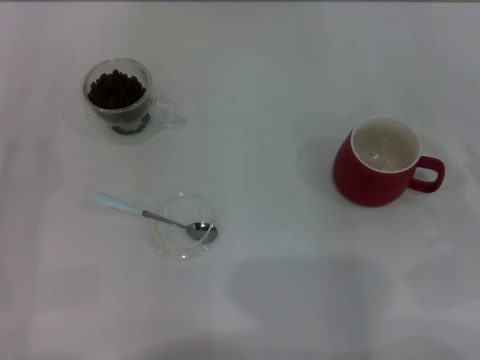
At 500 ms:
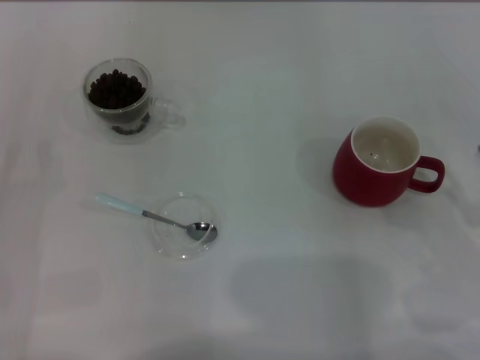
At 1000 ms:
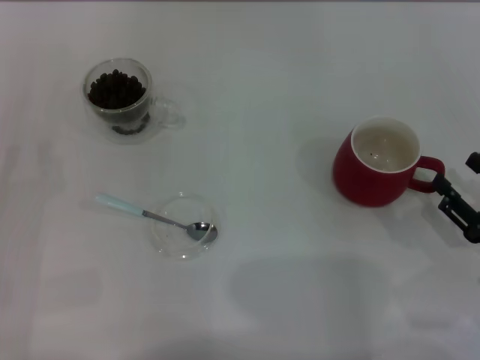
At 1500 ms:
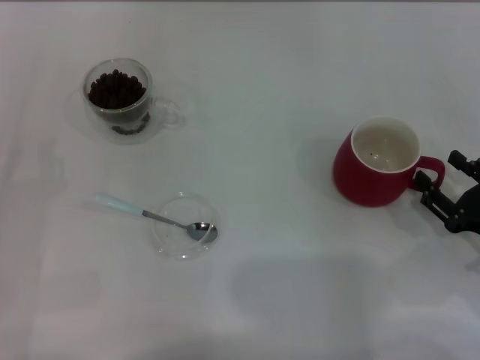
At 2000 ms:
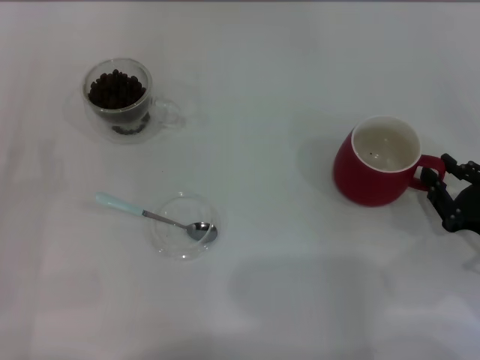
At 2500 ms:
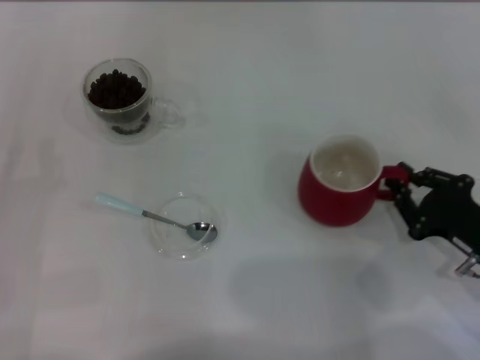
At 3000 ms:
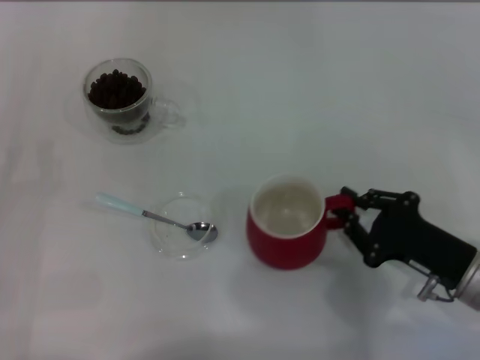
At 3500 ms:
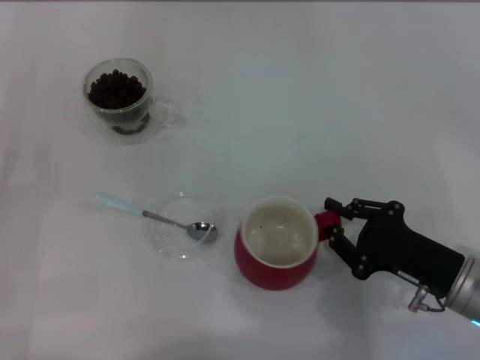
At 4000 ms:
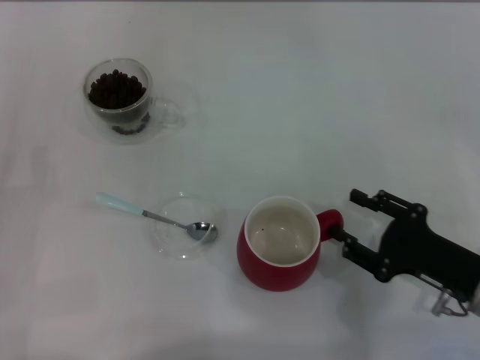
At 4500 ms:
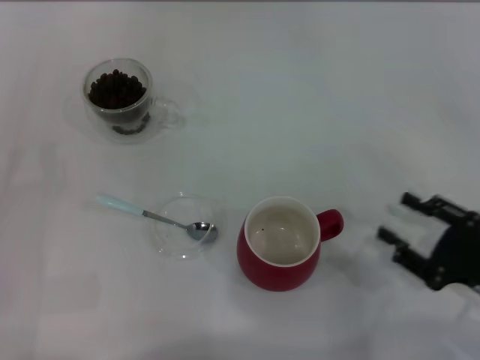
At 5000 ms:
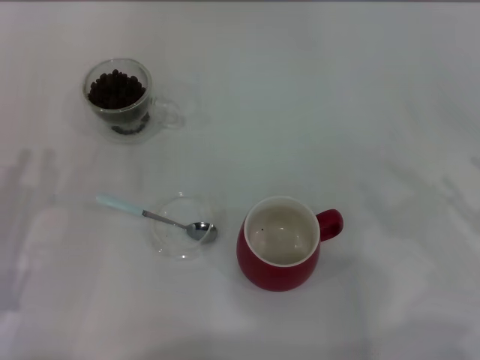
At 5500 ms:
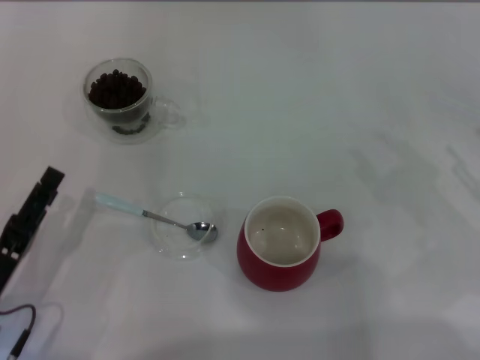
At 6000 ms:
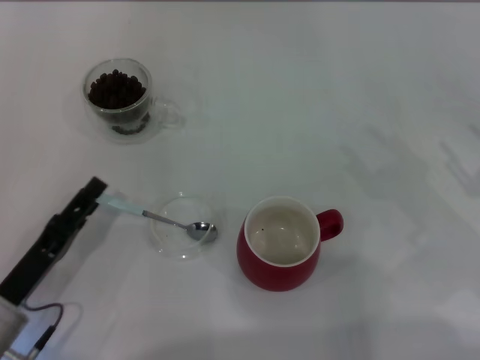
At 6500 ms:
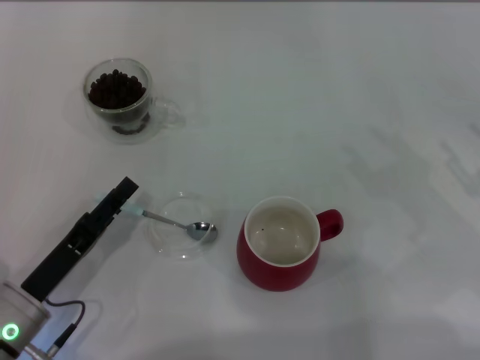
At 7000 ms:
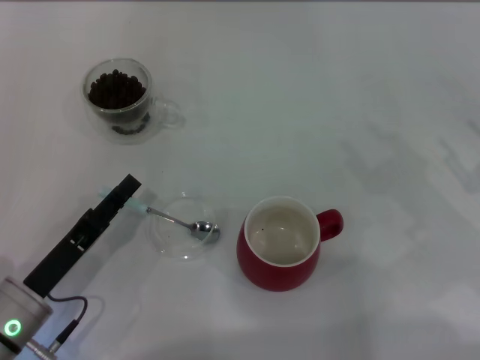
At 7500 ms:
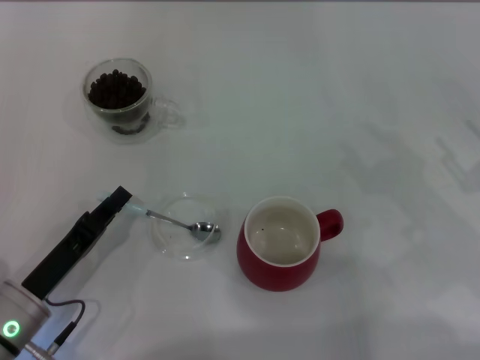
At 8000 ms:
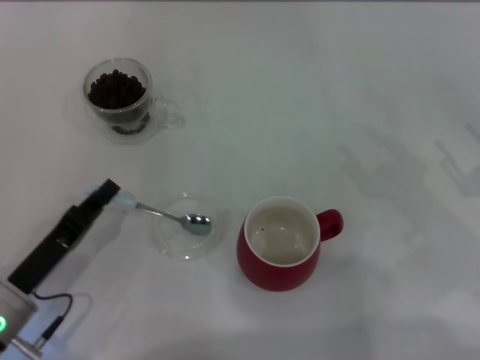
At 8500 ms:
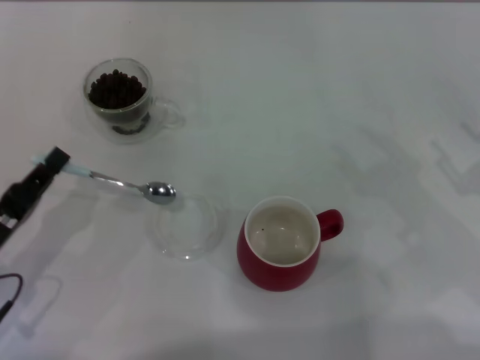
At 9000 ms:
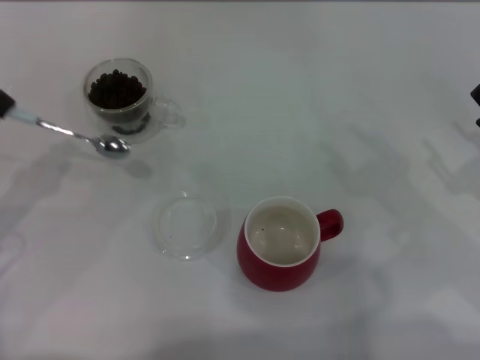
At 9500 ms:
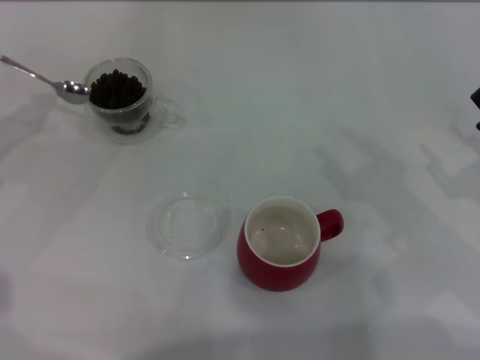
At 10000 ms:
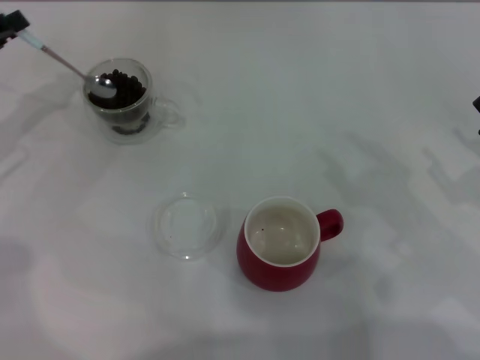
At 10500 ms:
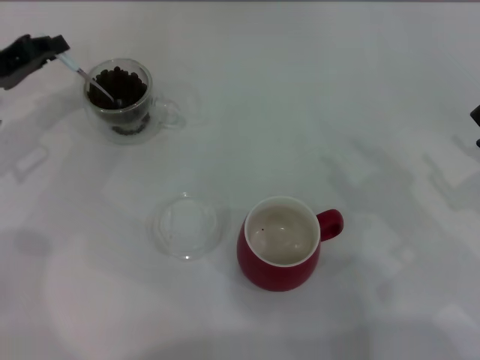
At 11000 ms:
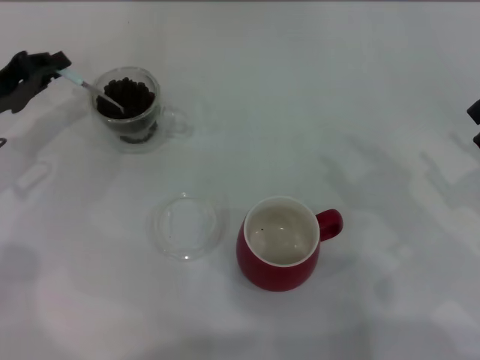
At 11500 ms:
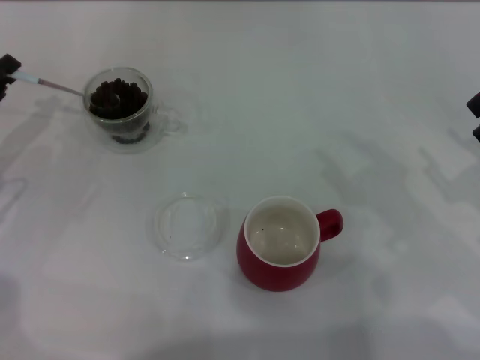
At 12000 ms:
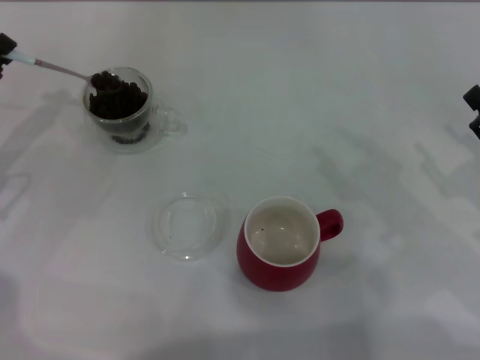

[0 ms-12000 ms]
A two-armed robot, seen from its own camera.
Task of the whole recording: Use a blue spoon to take out the coffee beans from the glass and pour them into the red cup.
Step, 5000 ms to 8000 ms: Pick up the spoon with the right gripper.
0 ms to 2000 ms: The right gripper ends up approximately 5 cm from where it was, and closes.
2000 ms to 4000 ms: The right gripper travels to the left by roughly 5 cm, and closes and opens again.
4000 ms to 6000 ms: The right gripper moves to the right and upward, approximately 10 cm. The left gripper goes roughly 10 cm to the right, and opens its fingers.
6000 ms to 8000 ms: The left gripper closes.
8000 ms to 10000 ms: The left gripper goes some 25 cm forward, upward and to the left.
10000 ms to 12000 ms: The left gripper changes place by roughly 5 cm.

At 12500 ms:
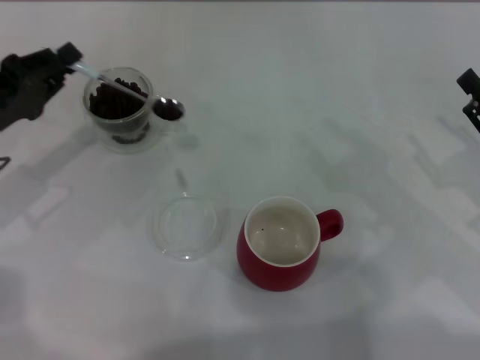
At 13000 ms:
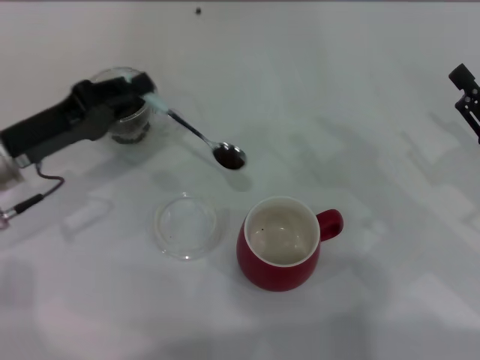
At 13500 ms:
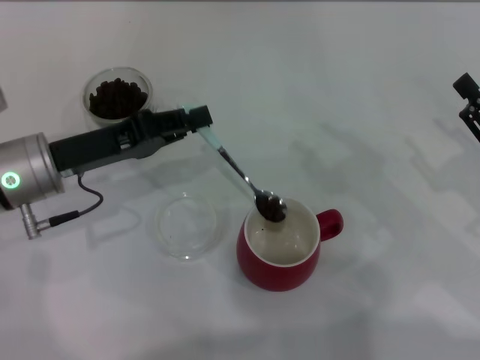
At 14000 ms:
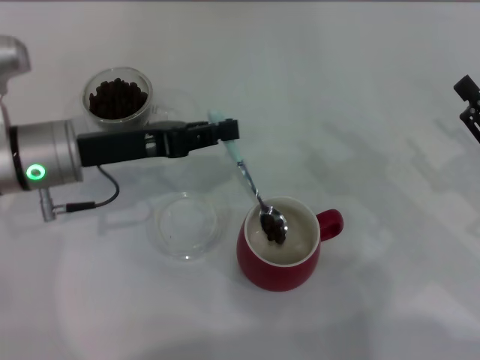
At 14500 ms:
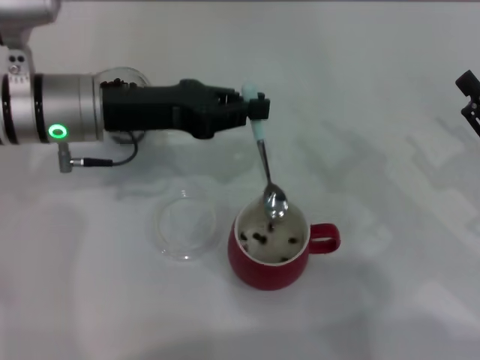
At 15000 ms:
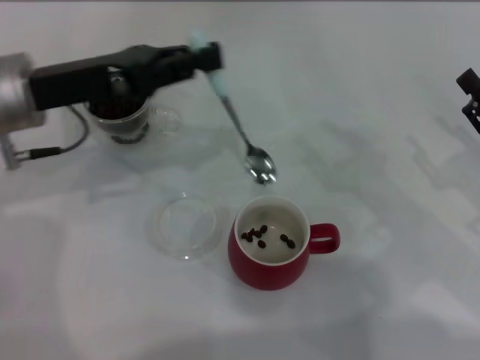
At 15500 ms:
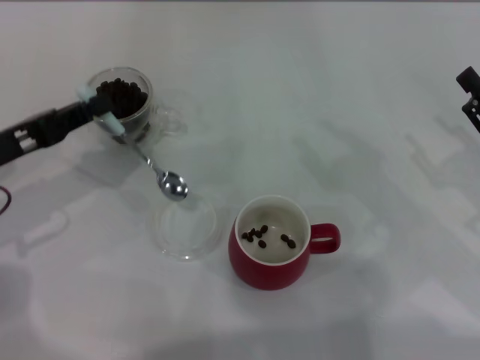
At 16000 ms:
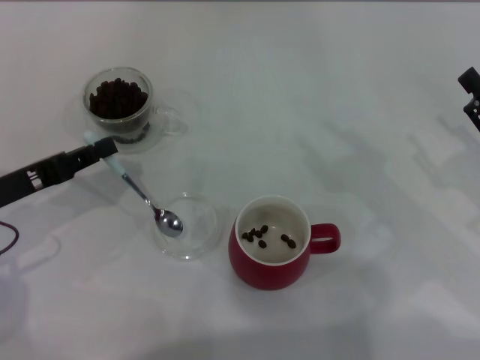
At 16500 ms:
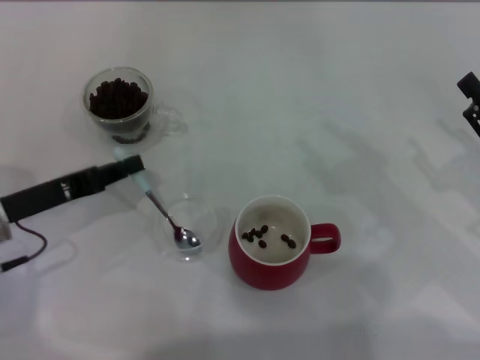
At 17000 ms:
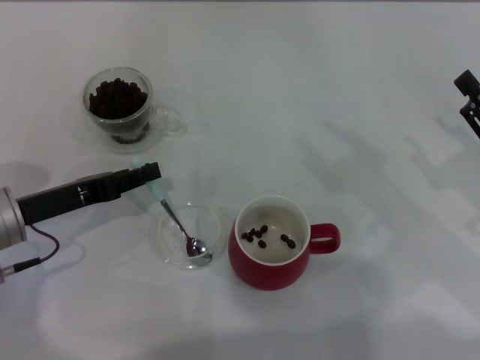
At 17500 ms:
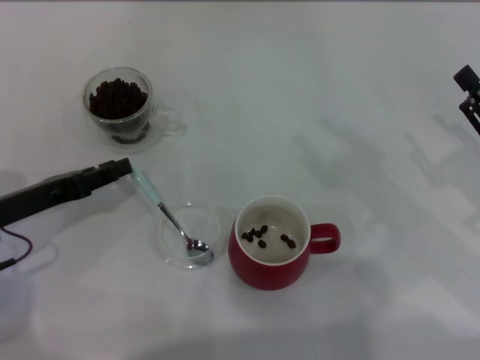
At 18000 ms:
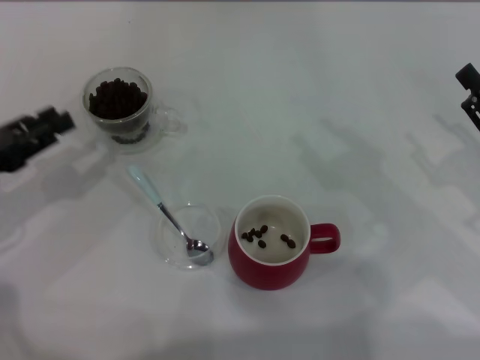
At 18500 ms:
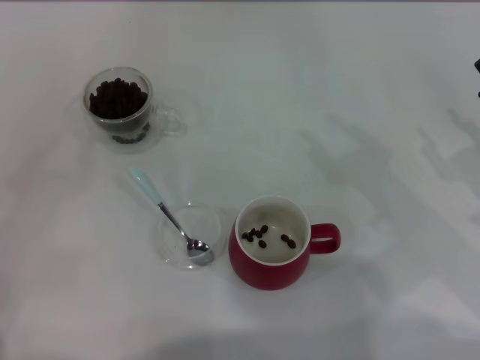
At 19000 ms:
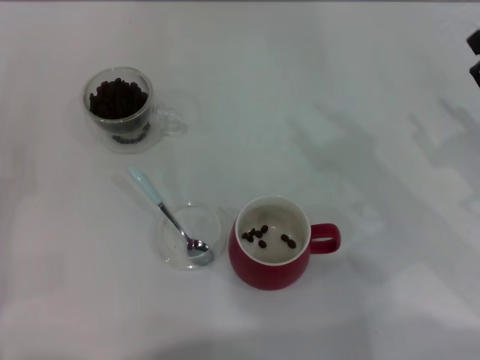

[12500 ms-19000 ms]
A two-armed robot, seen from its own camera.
Task of the whole recording: Use a blue spoon to take out the coffee beans from the glass and pour them into the red cup.
12500 ms to 14500 ms: The left gripper travels to the right by some 15 cm.
14500 ms to 17000 ms: The left gripper heads to the left, downward and backward, covering some 15 cm.
17000 ms to 19000 ms: The left gripper moves to the left and backward, about 15 cm, and opens its fingers.

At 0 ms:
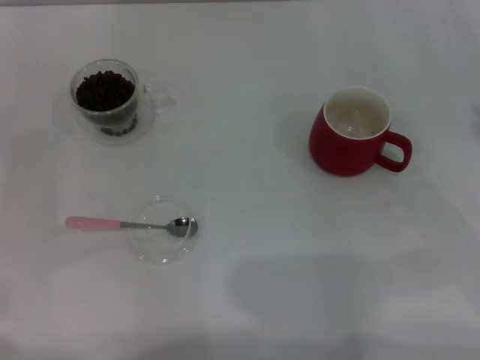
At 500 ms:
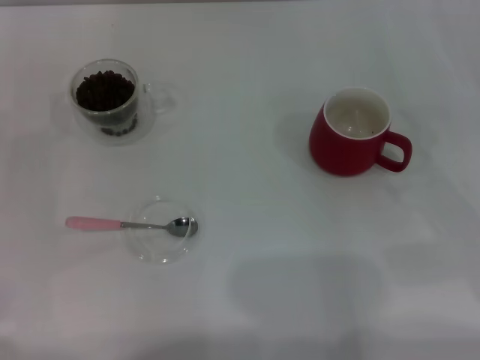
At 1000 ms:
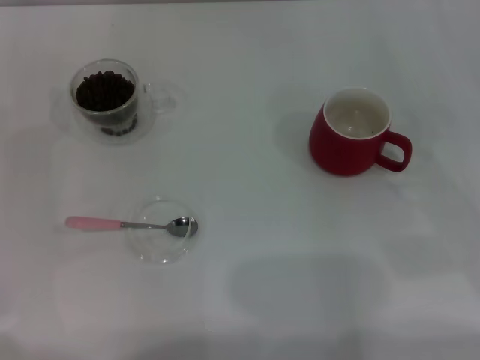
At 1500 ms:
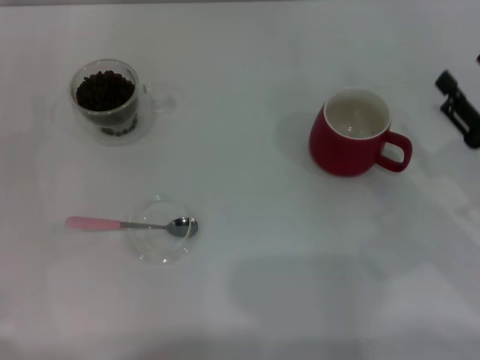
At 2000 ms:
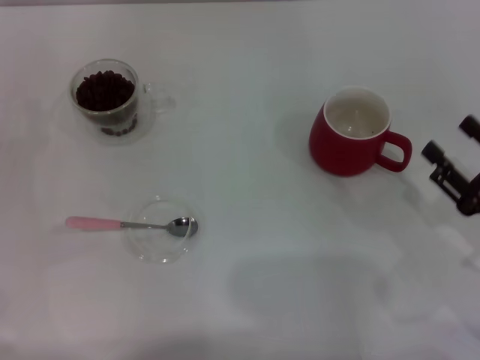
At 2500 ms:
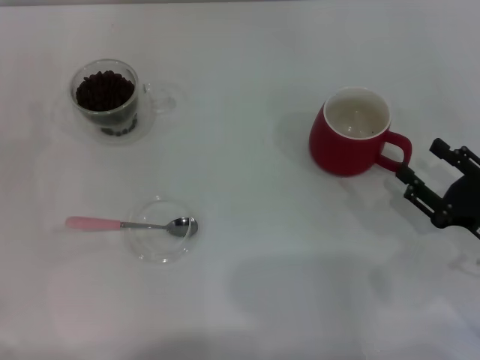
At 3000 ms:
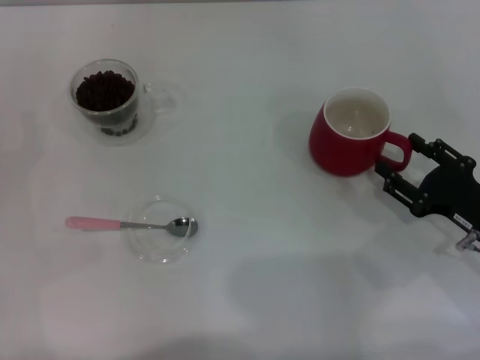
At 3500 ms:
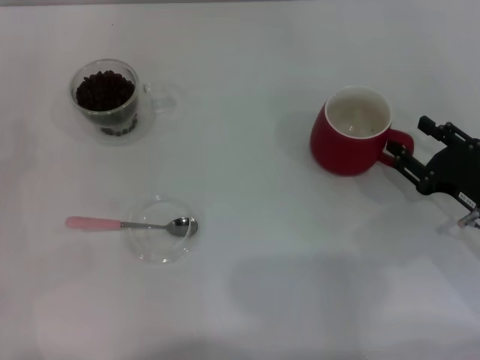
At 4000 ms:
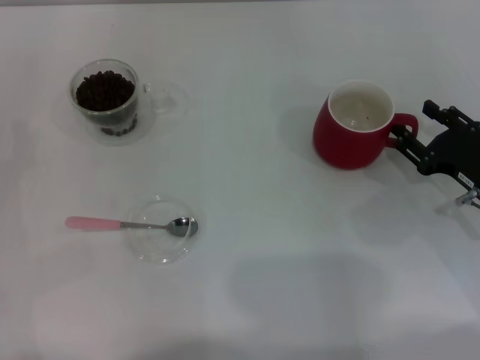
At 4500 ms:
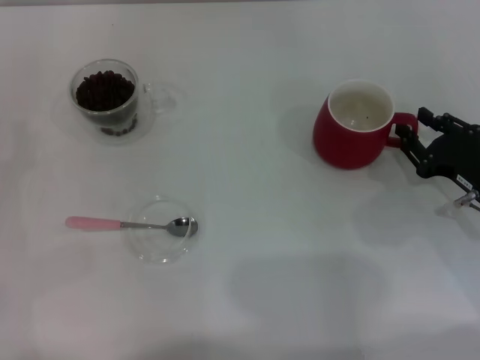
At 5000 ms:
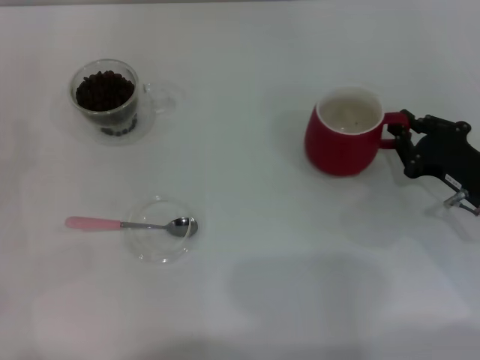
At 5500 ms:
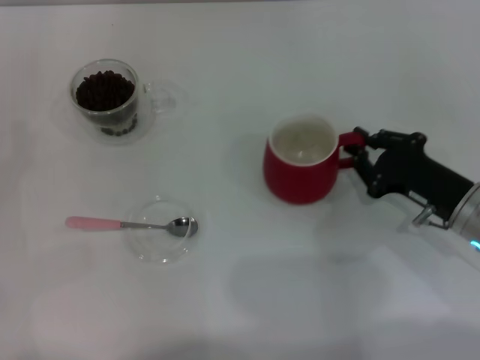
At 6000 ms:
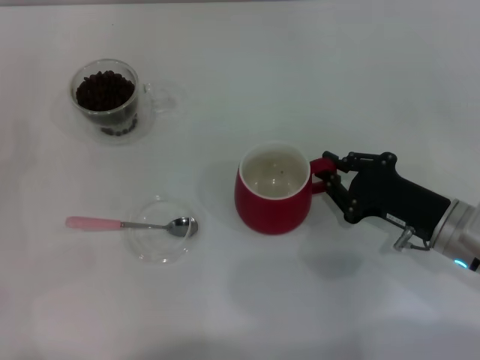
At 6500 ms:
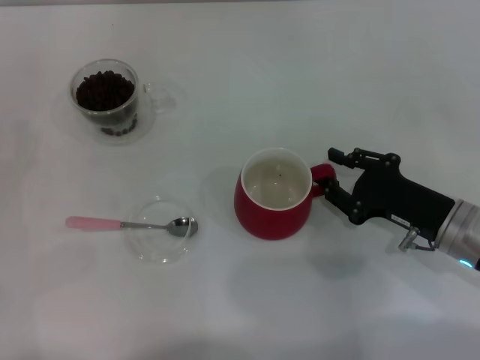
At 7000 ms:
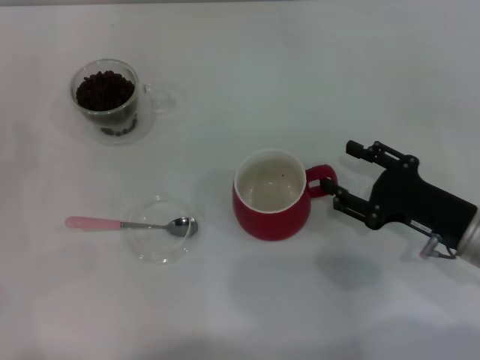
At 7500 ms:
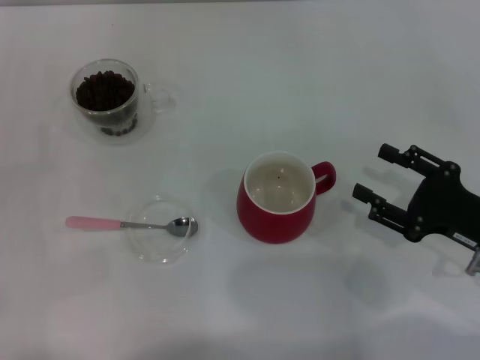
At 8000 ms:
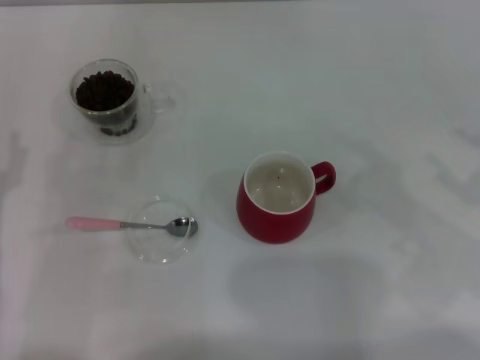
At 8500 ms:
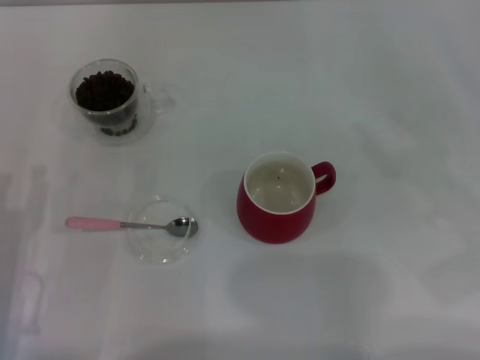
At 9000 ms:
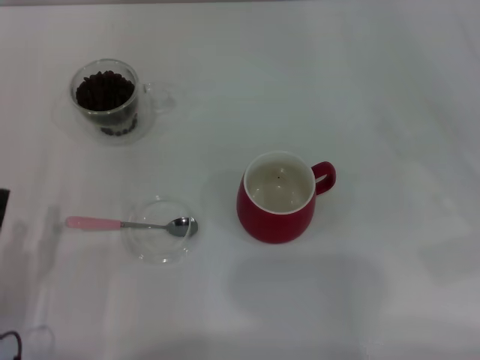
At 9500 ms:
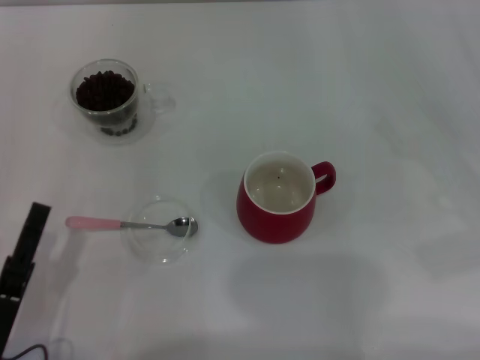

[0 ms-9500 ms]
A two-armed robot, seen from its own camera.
Task of the whole recording: Use a pink spoon to take out the coffee beans from the glass and pour them into the red cup.
Step, 0 ms to 7000 ms: Move the cup to the center of view with the left gripper.
0 ms to 2000 ms: The right gripper travels downward by some 5 cm.
2000 ms to 4000 ms: The right gripper travels forward by approximately 5 cm.
4000 ms to 5500 ms: The right gripper closes its fingers.
5500 ms to 7500 ms: The right gripper changes place by approximately 5 cm, and opens up.
7500 ms to 9500 ms: The left gripper moves backward, to the right and downward, about 15 cm; the right gripper travels to the right and upward by roughly 15 cm.
